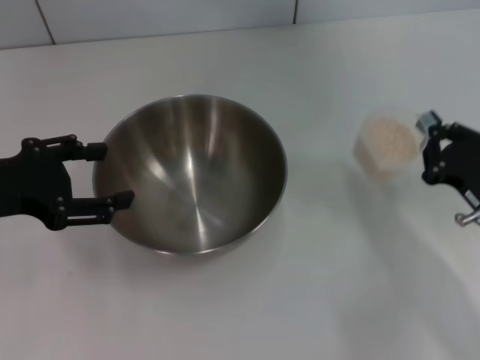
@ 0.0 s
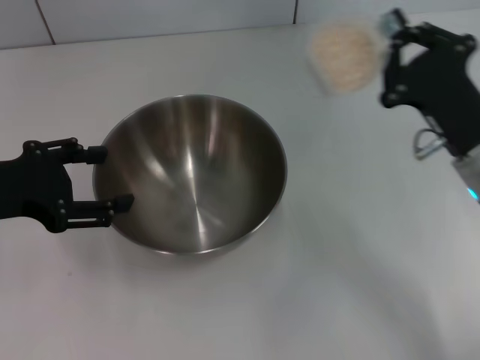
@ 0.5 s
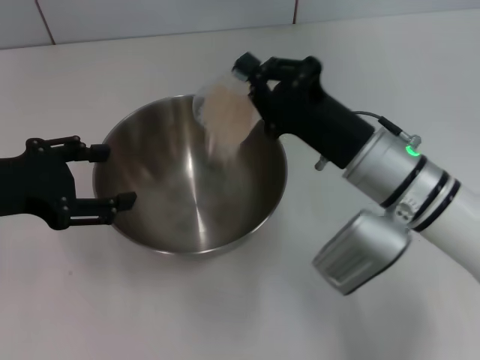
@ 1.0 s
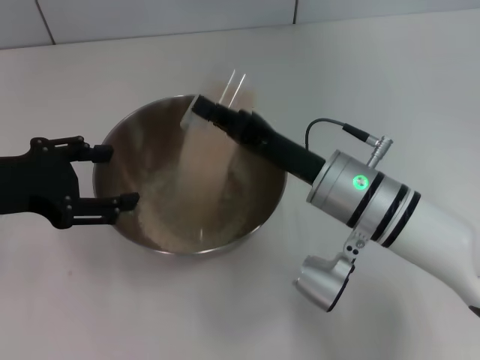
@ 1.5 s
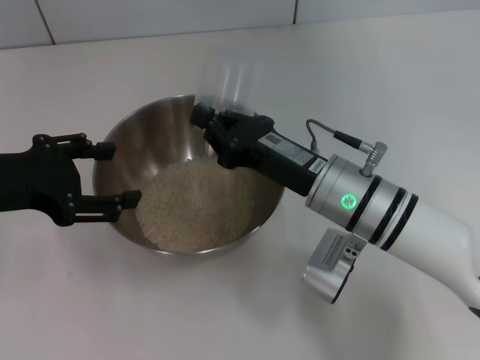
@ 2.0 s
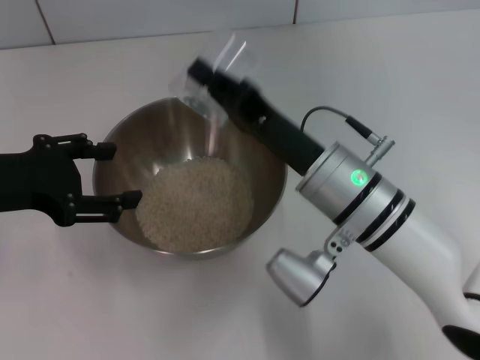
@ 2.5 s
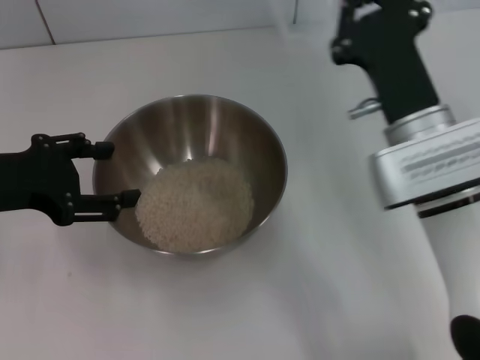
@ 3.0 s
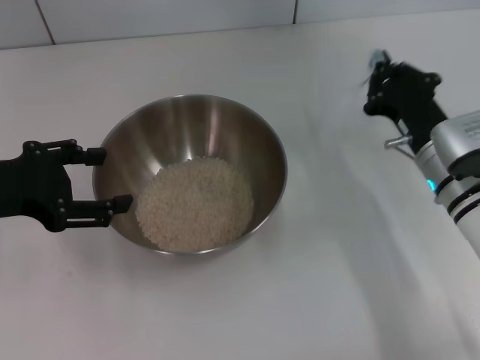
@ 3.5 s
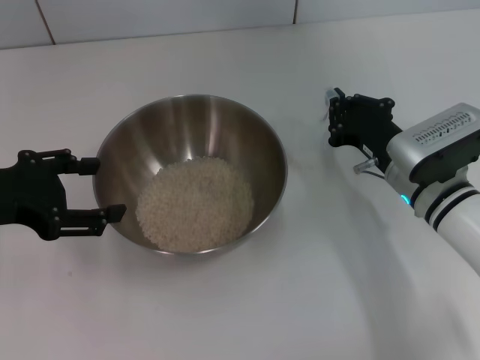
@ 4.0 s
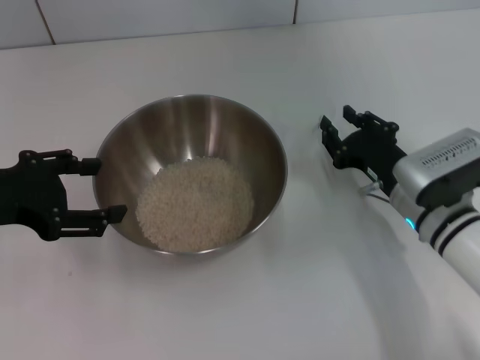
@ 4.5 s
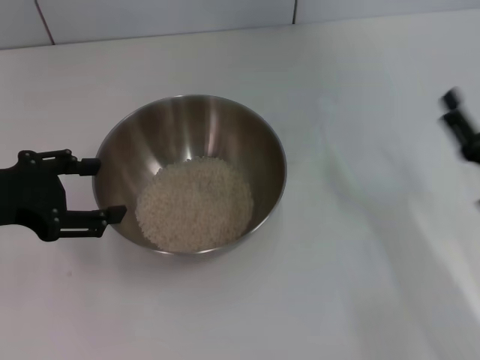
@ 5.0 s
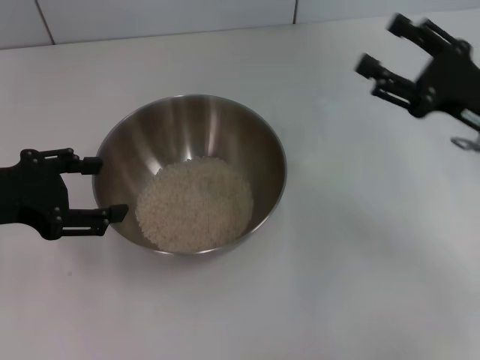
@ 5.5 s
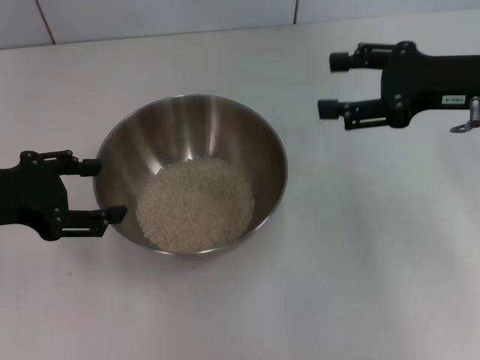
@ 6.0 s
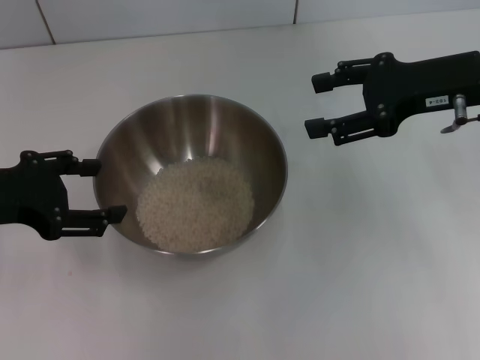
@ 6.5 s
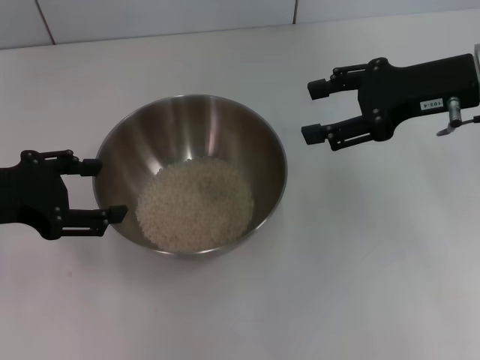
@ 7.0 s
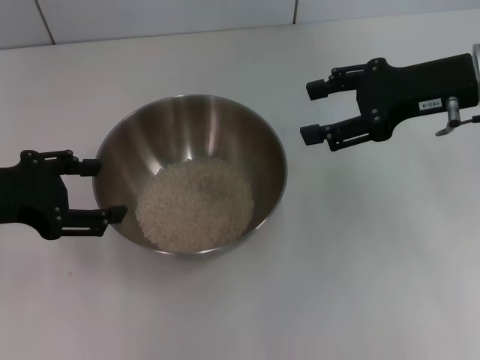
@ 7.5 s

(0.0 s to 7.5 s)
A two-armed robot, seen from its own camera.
Task of the whole recording: Place the bowl in the middle of the table with one hand and pour the rice from the grain cup into it with the other hand.
Step, 0.5 s - 2.5 s: Pour the rice from the cup into the bowl with the right gripper.
Step, 3.0 s - 4.5 s: Place the cup on the table with the right gripper.
0.0 s - 2.0 s: The right gripper is displaced to the left and forward by some 20 cm.
2.0 s - 4.0 s: The right gripper shifts about 10 cm to the right.
4.0 s - 5.5 s: The right gripper moves to the right and upward, approximately 10 cm, travels backward and back again, approximately 10 cm each way, and opens.
5.5 s - 7.5 s: The right gripper is displaced upward and forward by roughly 10 cm.

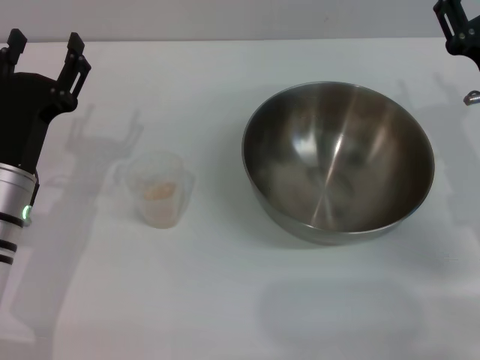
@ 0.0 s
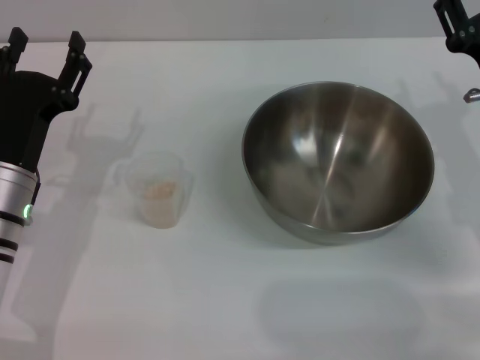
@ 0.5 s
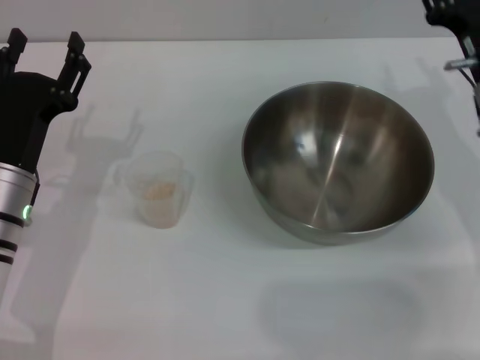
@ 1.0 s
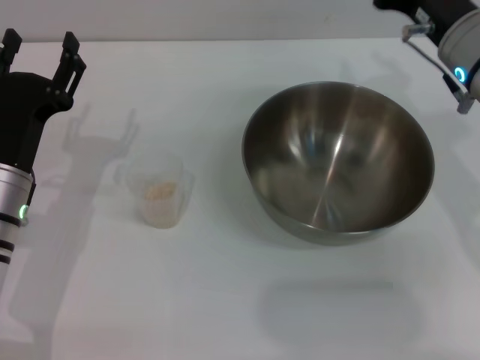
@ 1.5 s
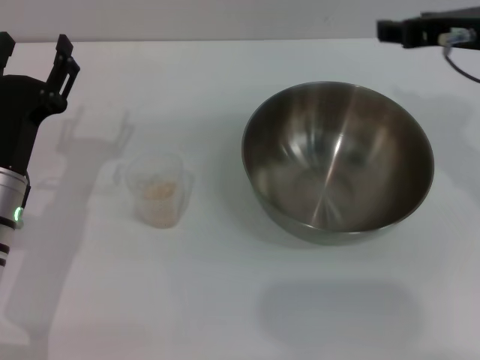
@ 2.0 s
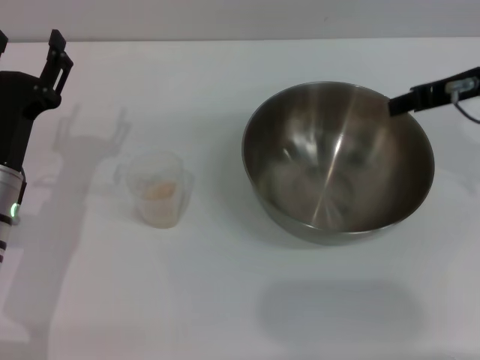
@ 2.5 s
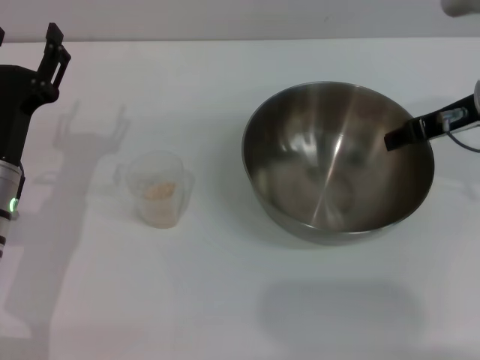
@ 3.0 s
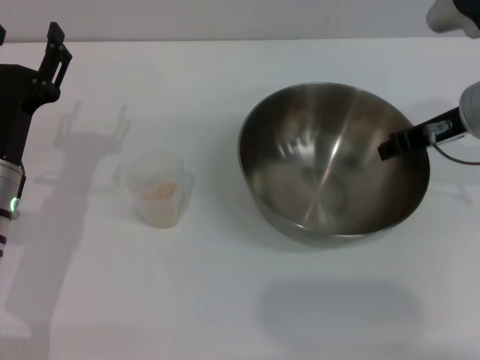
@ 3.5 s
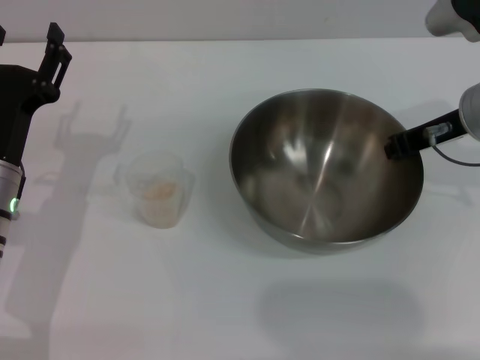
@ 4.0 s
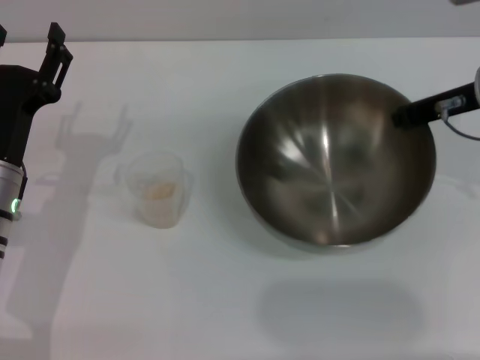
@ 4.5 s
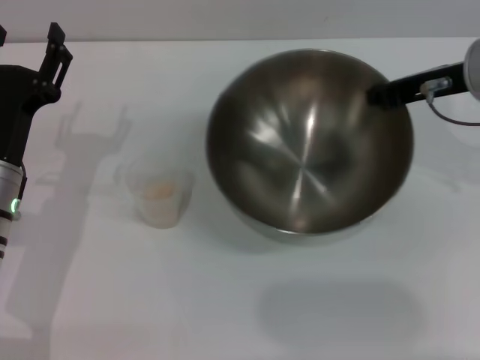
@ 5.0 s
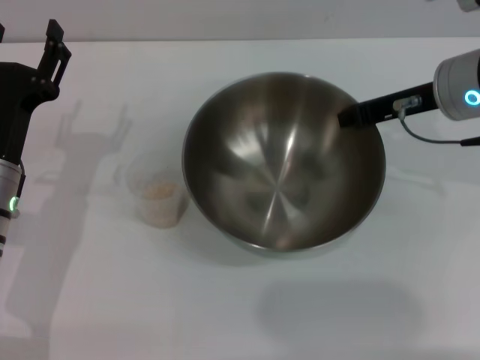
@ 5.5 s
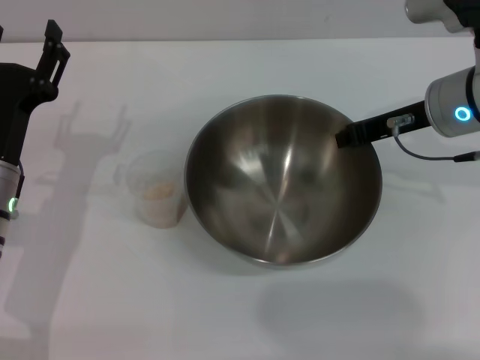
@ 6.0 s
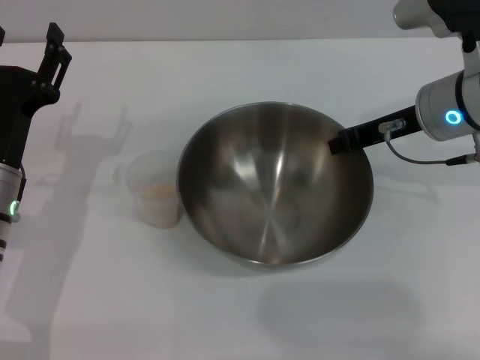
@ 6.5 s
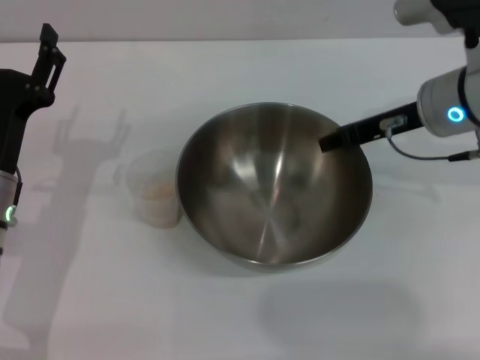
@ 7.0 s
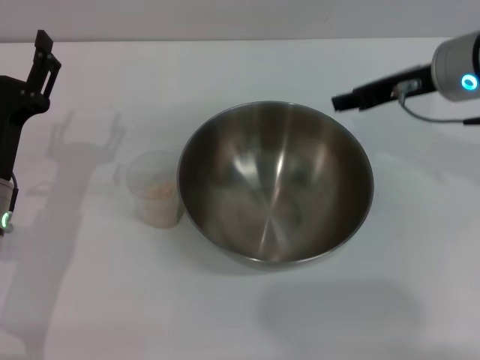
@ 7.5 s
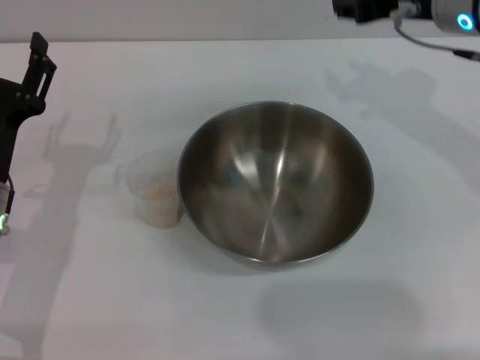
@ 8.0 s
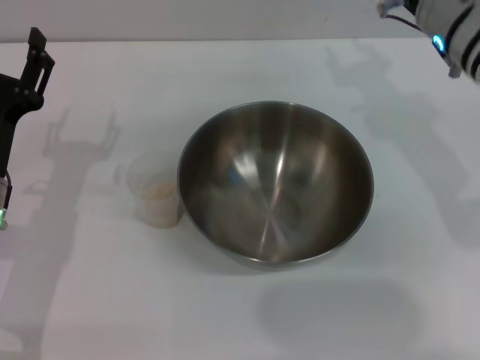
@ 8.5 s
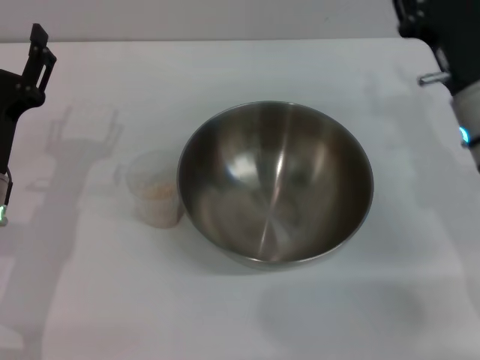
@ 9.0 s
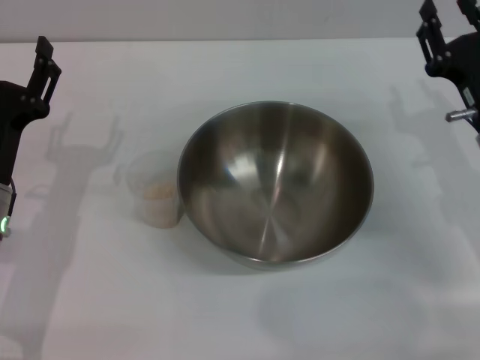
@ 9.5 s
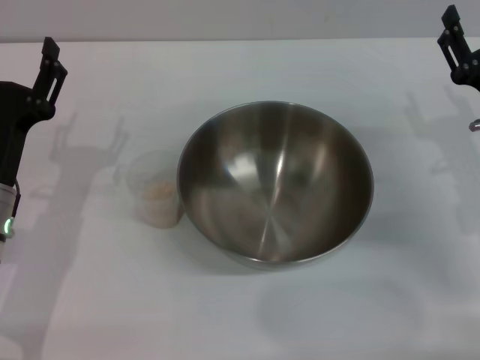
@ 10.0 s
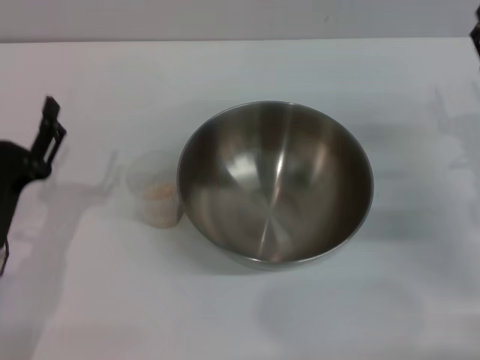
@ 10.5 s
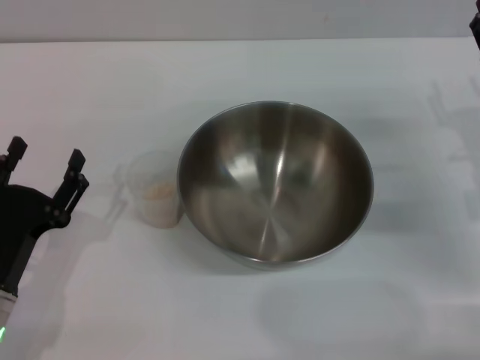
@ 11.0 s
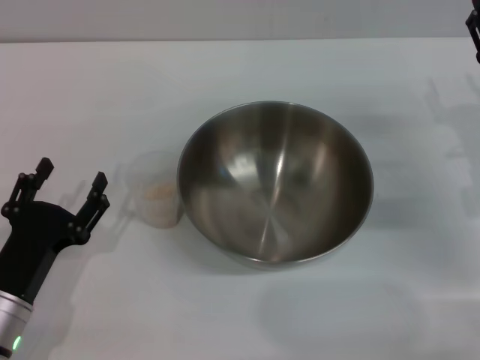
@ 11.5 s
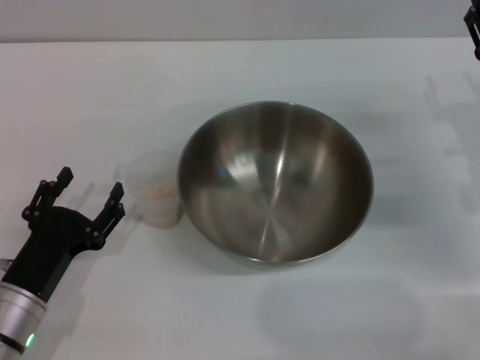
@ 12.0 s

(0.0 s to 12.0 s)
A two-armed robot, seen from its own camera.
Task of the whole recording: Place the bowl in the middle of the table with one hand and pour the rice from the grain cup into it with the other hand.
Step, 0.0 s - 4.5 s: Pick up the bowl with the right gripper.
Step, 5.0 s - 7.5 s: Place the bowl in the center of view with the right gripper.
0.0 s - 2.0 s: The right gripper is displaced upward by approximately 15 cm.
2.0 s - 4.0 s: The right gripper travels downward by some 5 cm, and closes up.
6.0 s - 8.0 s: The right gripper is displaced upward by some 5 cm, and opens.
8.0 s - 10.0 s: The right gripper shifts some 20 cm downward, backward and to the right.
10.0 s - 12.0 s: The left gripper heads backward and downward, covering roughly 10 cm.

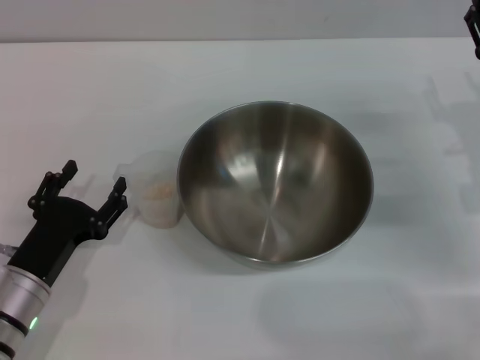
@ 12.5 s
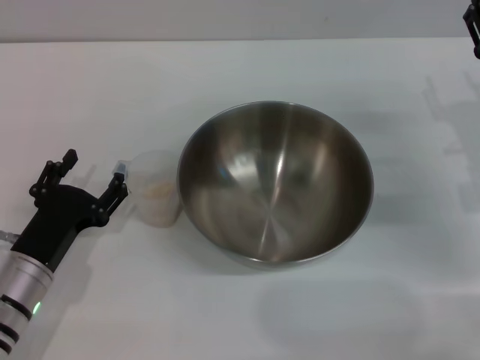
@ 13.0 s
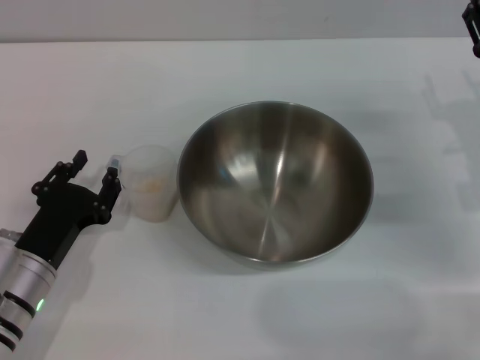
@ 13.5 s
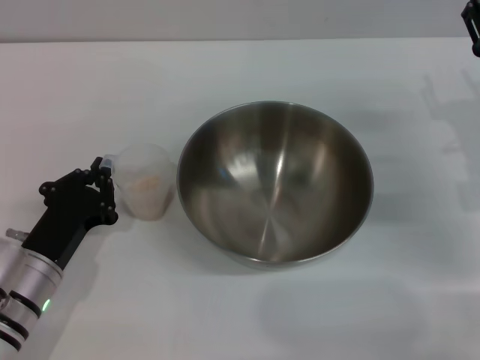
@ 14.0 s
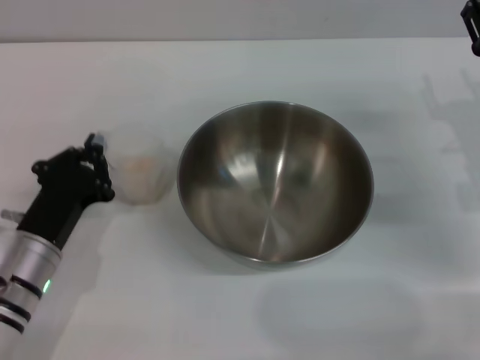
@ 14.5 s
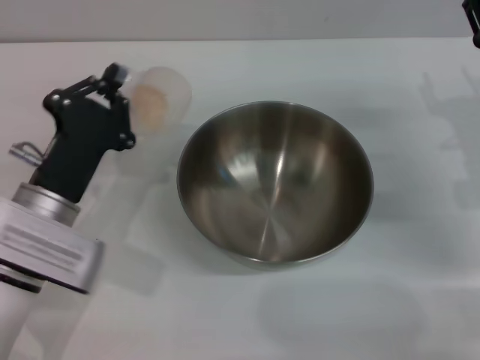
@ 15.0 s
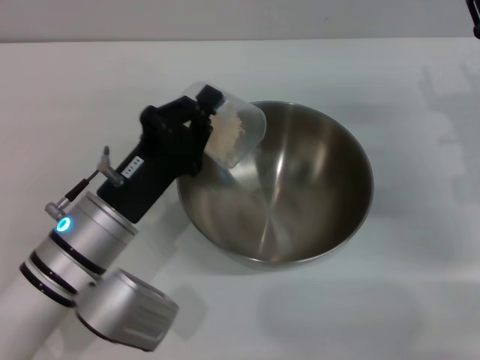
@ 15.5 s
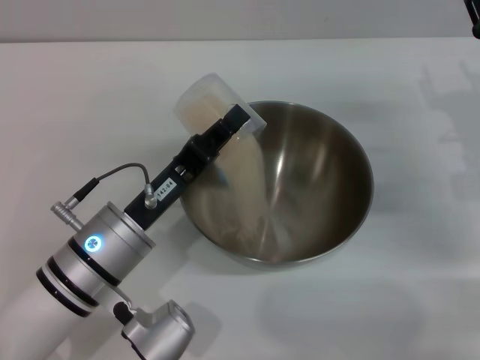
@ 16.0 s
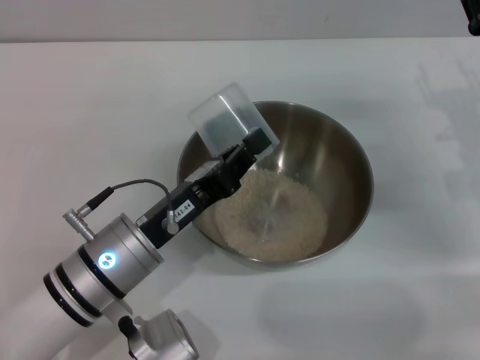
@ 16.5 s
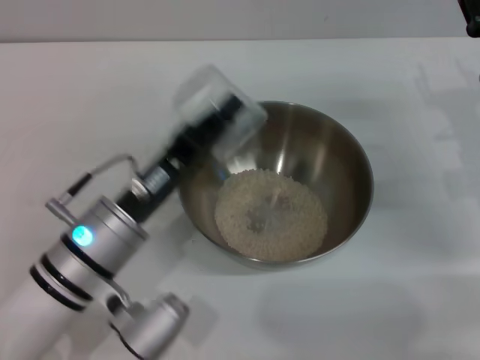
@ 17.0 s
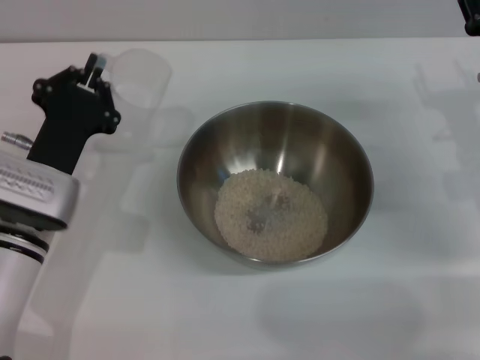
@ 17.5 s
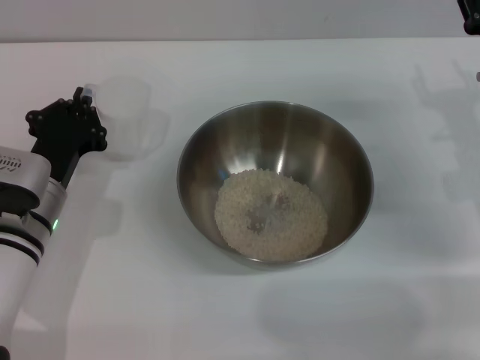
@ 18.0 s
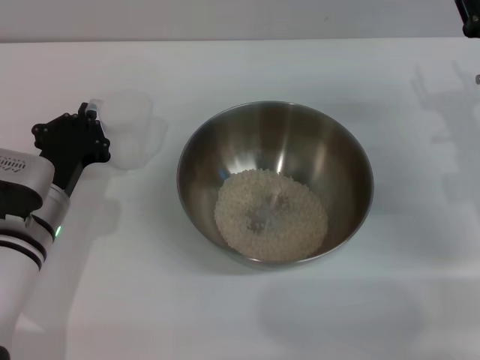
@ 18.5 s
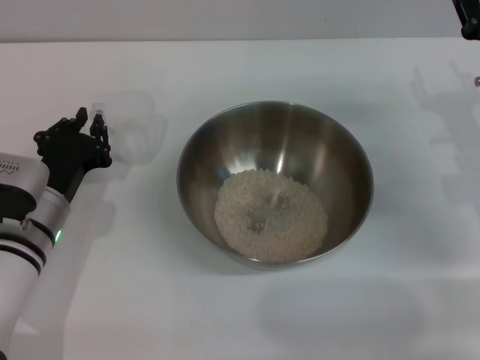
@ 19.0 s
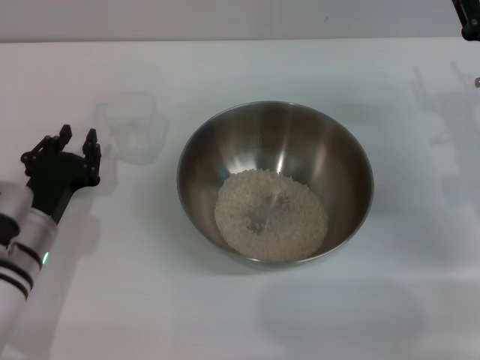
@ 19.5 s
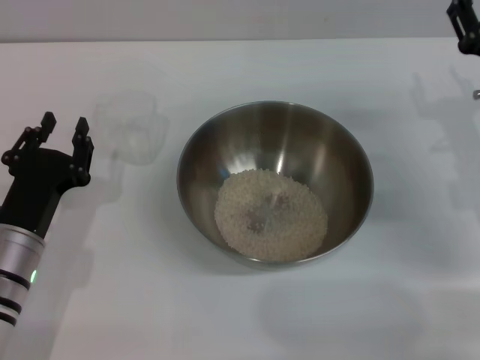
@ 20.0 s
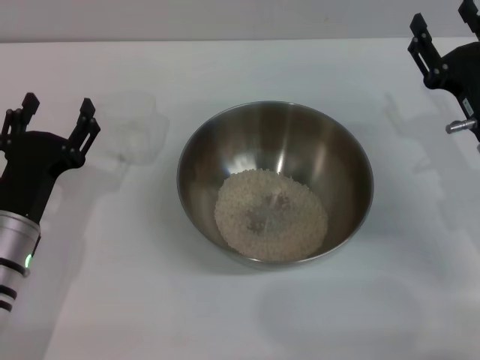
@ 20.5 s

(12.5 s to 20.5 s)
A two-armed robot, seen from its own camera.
Task of the whole recording: Place the bowl in the middle of the table with one hand and pour the rice from the grain cup into it with the other hand.
Step, 12.5 s - 14.5 s: Pick up the cup with rice in it with the left gripper.
Step, 15.0 s - 16.5 s: Pour the rice from the cup into the bowl with the left gripper.
Step, 17.5 s - 19.5 s: Place the cup on the table with the left gripper.
12.5 s - 14.5 s: The left gripper closes.
14.5 s - 16.5 s: The left gripper heads to the right, covering approximately 10 cm.
16.5 s - 18.5 s: The left gripper moves to the left and forward, roughly 10 cm.
18.5 s - 20.5 s: The left gripper opens.
